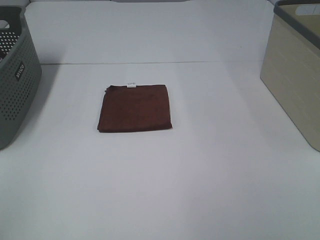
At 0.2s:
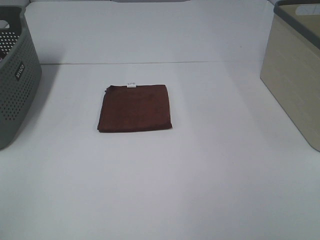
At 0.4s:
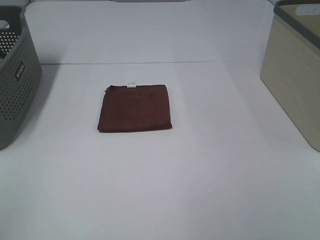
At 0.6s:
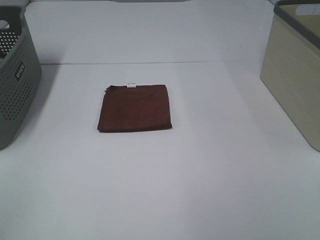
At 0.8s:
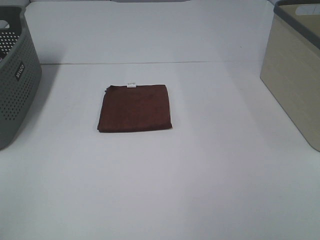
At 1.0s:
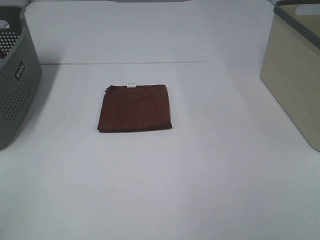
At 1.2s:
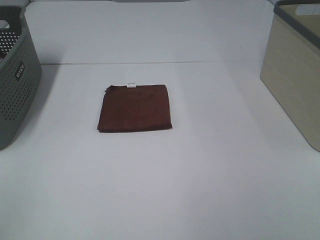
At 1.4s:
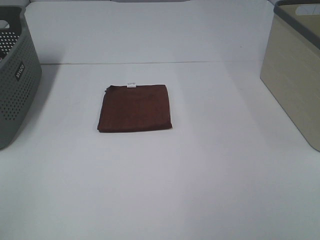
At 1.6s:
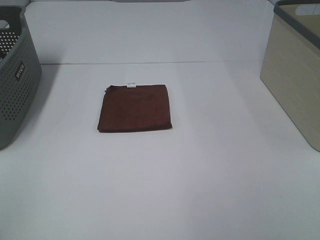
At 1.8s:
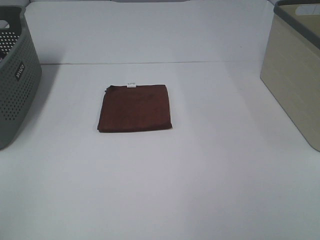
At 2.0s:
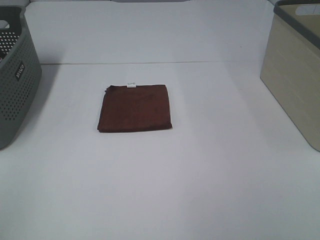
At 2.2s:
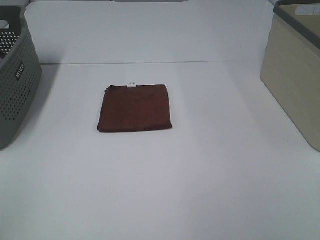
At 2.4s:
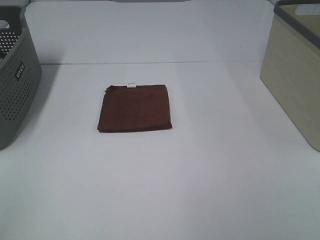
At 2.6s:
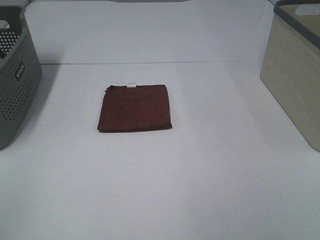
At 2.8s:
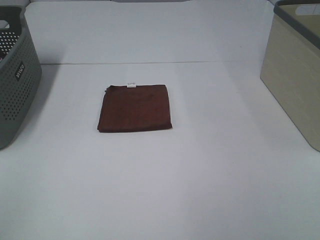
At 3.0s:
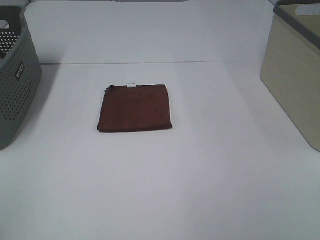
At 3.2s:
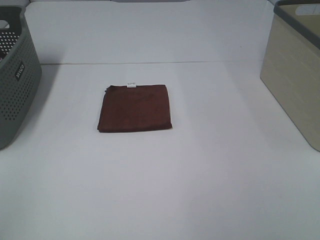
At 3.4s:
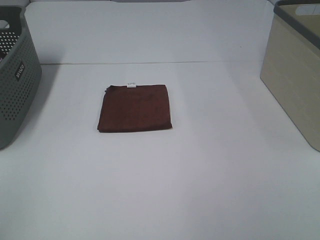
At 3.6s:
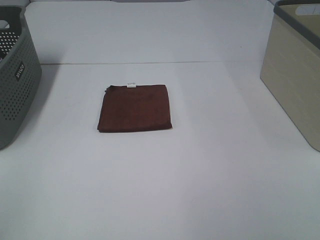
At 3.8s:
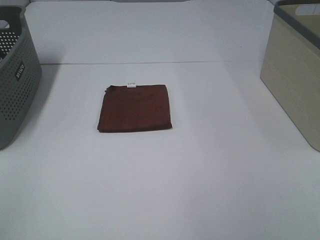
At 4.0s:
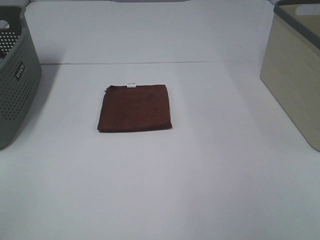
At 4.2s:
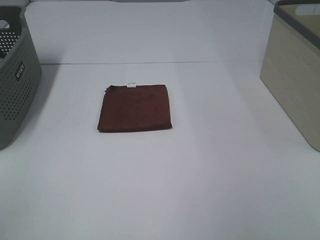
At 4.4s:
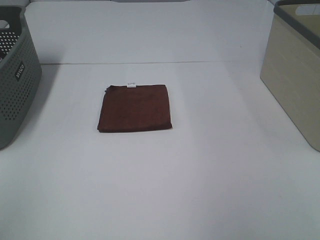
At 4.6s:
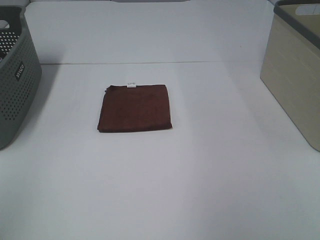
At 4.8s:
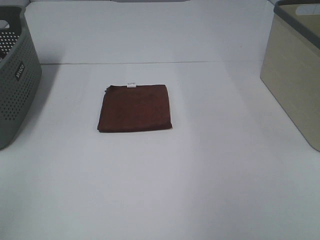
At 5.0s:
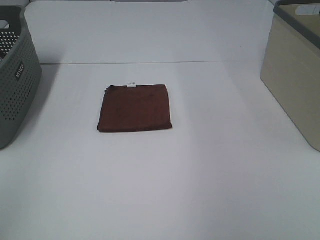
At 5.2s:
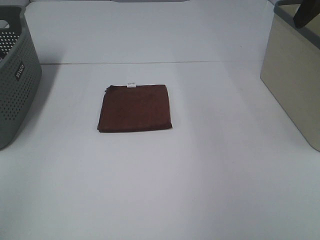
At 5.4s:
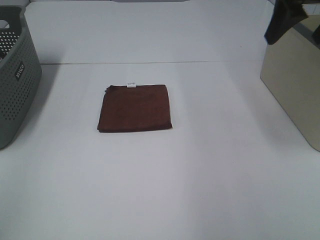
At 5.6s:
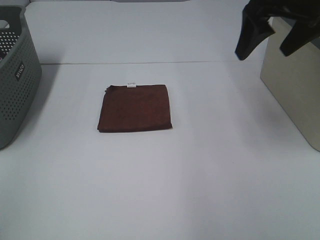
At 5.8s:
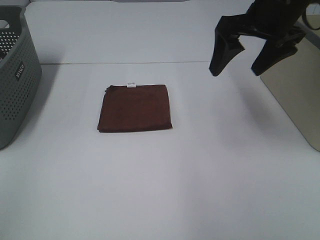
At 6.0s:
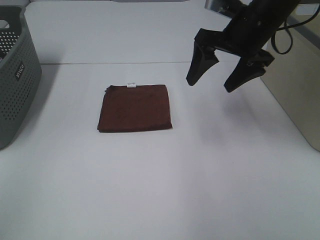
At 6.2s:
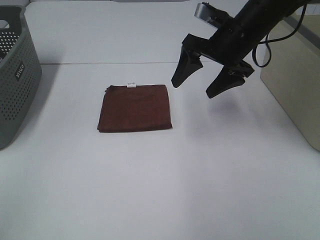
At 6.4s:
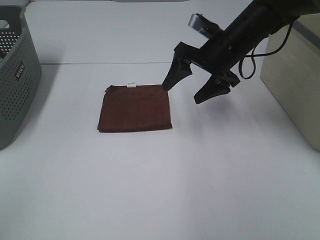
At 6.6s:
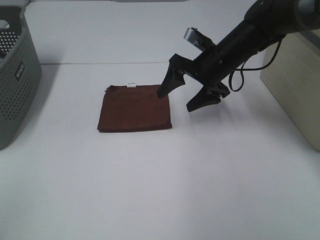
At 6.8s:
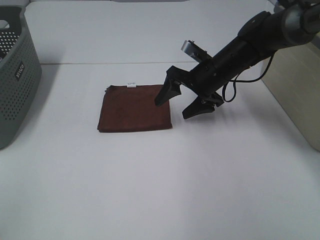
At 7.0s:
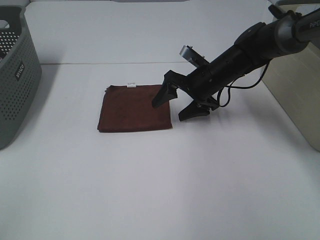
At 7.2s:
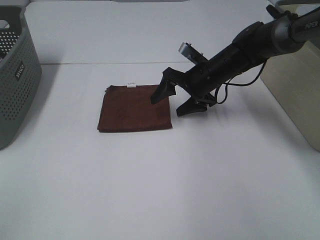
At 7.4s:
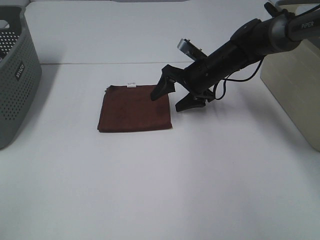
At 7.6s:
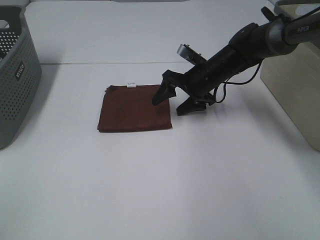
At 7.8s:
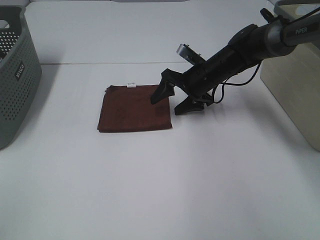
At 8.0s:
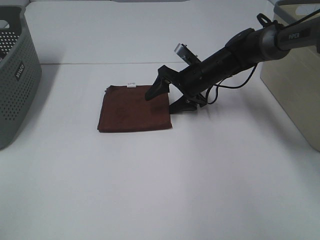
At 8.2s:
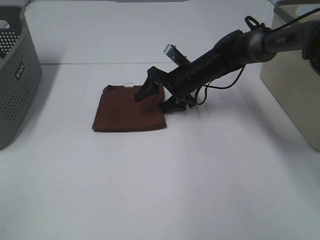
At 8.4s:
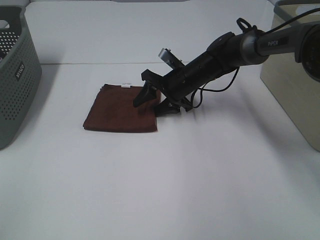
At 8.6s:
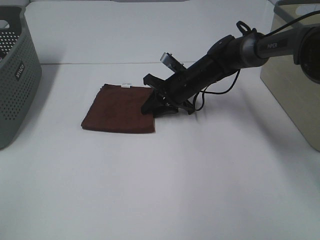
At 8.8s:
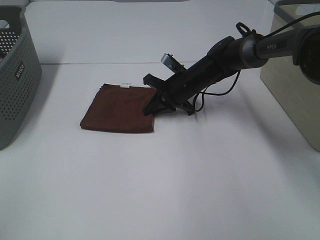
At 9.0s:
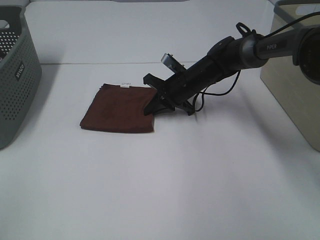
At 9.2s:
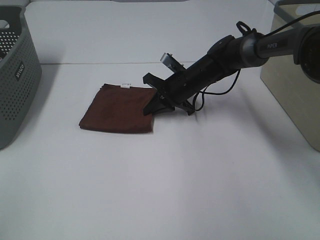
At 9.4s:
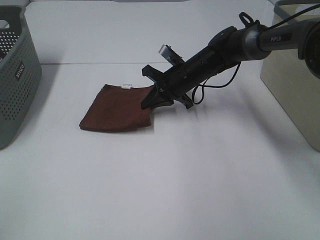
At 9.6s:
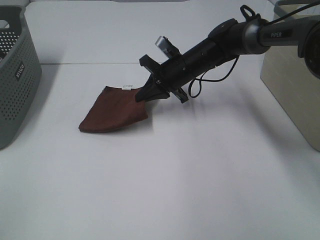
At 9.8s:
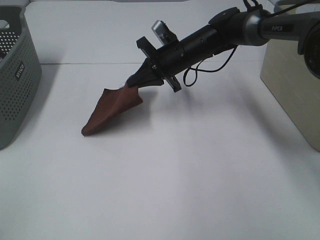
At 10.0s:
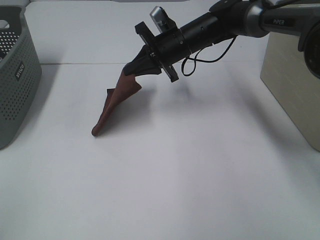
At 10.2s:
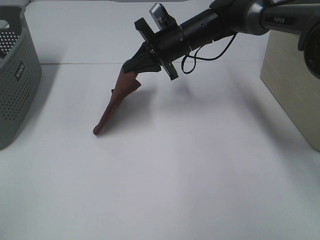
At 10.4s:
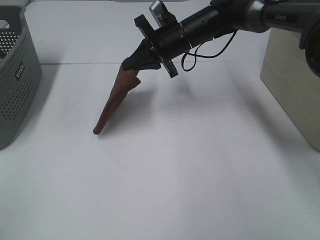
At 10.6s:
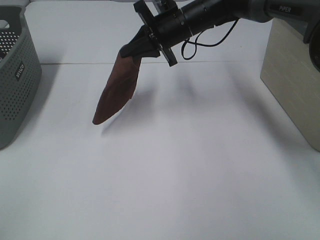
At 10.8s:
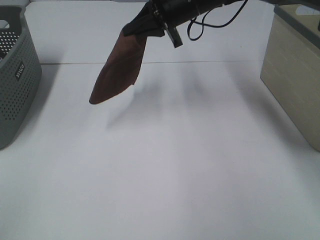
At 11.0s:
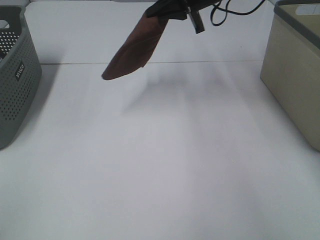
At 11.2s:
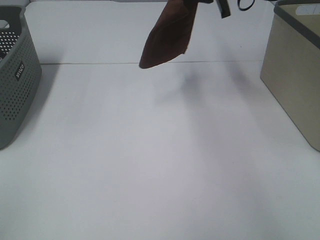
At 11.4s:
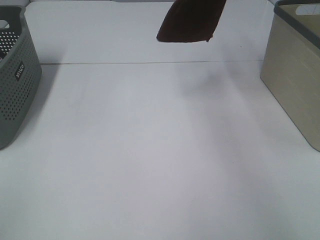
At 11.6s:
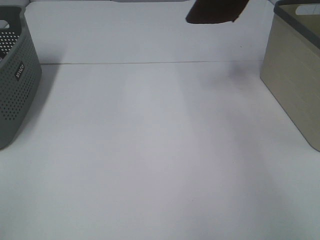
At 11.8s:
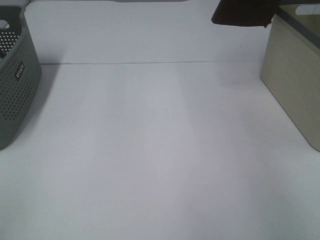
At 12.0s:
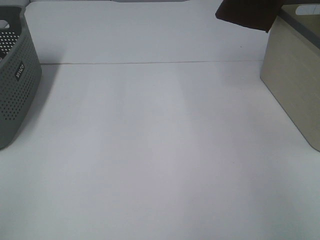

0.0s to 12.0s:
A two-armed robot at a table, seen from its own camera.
Step, 0.0s to 8.8s: Right hand: grab the folded brown towel.
0.0s to 3.0s: The two grippers keep their place.
4.4s to 6.0s: The right gripper is displaced forward, to the left and downward by about 30 cm.
6.0s to 7.6s: The right gripper is displaced downward and forward by about 15 cm.
7.6s to 9.0s: The right gripper moves about 5 cm, and closes its fingers.
9.0s to 10.4s: The right gripper heads upward, covering roughly 10 cm.
10.4s to 12.0s: The right gripper is displaced to the right and upward by about 35 cm.

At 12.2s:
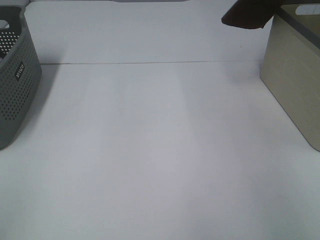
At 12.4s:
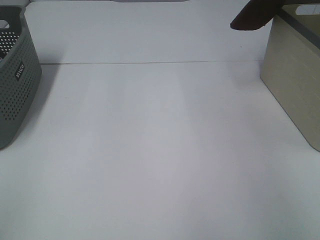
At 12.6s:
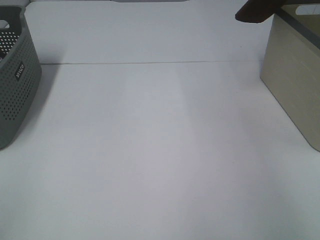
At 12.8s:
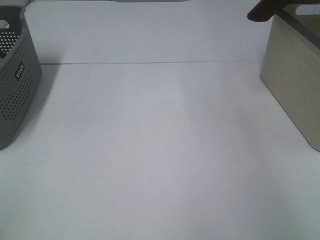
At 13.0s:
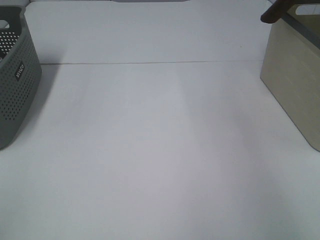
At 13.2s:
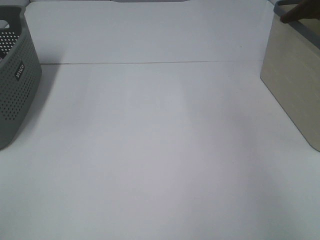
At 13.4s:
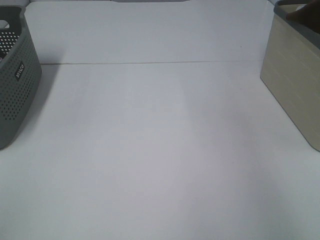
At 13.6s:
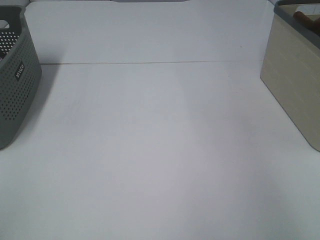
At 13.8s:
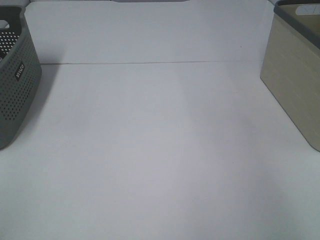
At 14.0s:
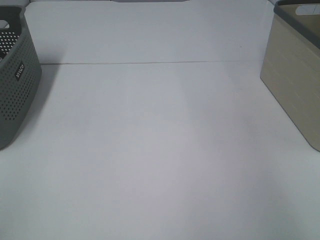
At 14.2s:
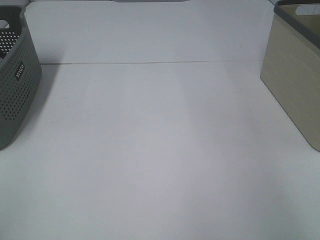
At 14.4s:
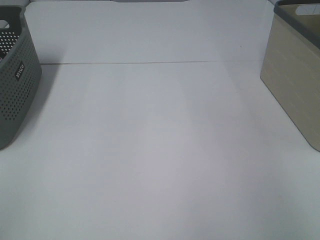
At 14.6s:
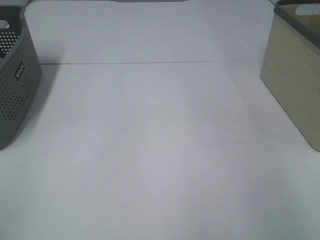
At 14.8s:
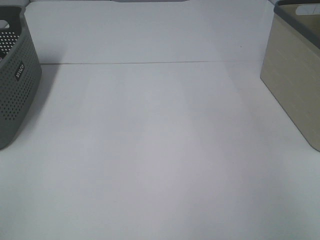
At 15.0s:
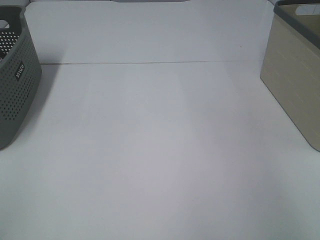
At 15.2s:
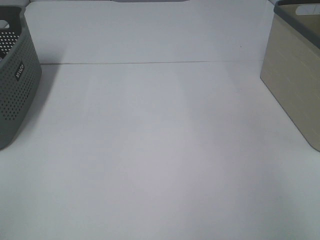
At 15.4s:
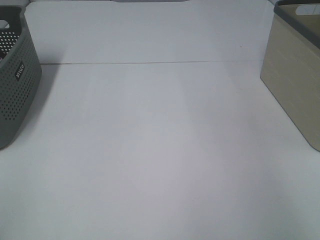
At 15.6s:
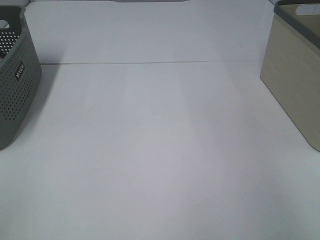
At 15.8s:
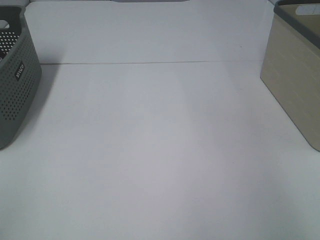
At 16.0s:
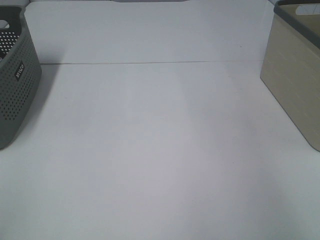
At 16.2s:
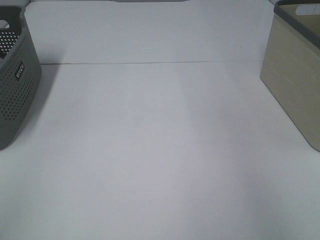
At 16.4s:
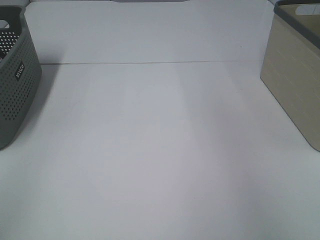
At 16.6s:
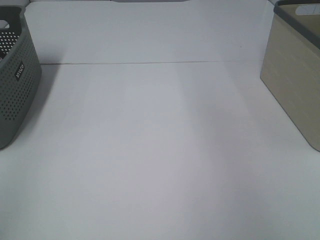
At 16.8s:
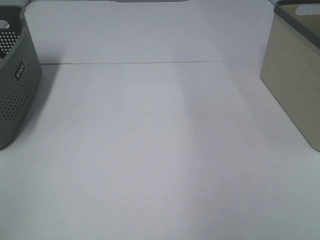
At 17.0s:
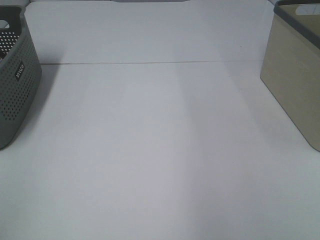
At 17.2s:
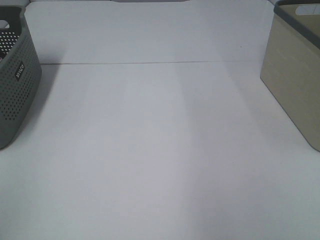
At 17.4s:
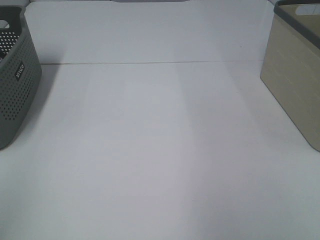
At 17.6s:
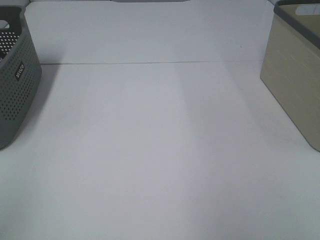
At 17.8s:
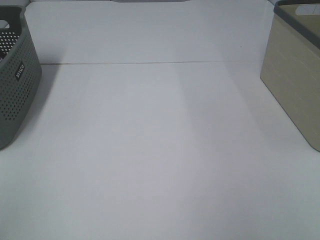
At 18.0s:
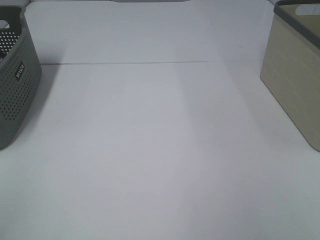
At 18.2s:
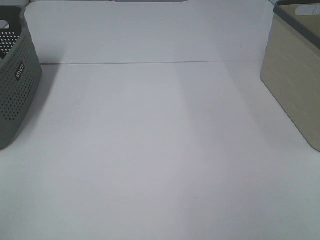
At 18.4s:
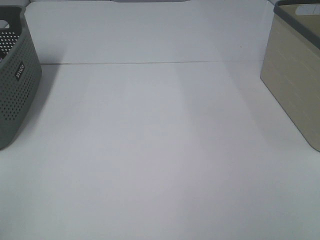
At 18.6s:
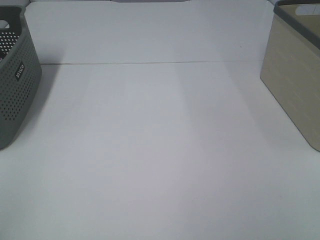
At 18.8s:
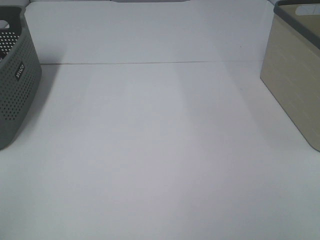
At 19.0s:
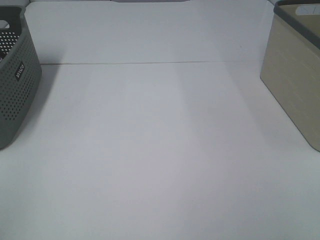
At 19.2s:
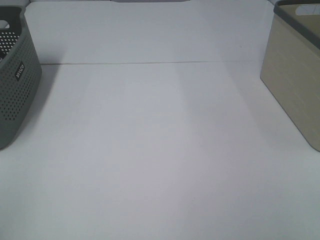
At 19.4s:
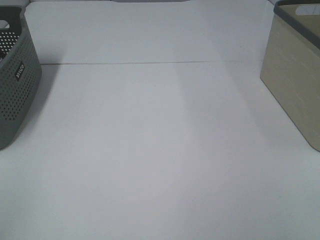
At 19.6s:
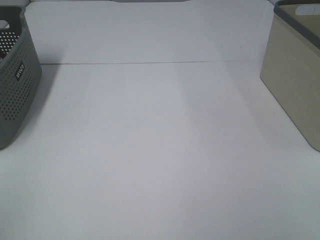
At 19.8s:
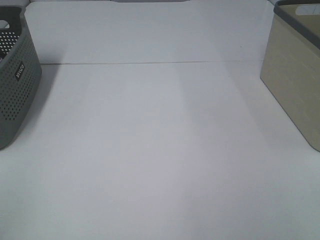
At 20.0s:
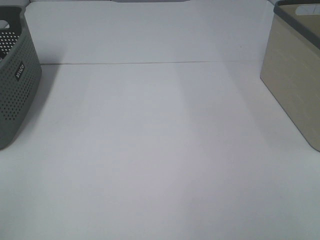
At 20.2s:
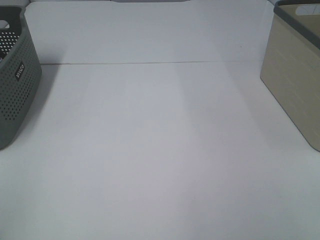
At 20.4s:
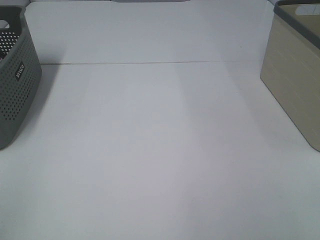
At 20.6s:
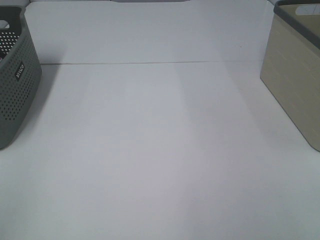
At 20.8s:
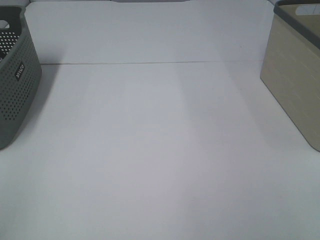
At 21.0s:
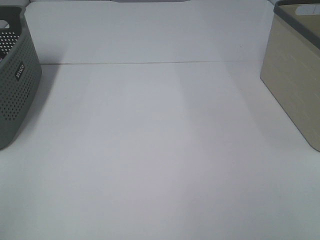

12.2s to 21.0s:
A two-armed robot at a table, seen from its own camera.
Step, 12.2s to 15.6s: Right hand: place the brown towel in right basket.
12.2s to 13.6s: The right gripper goes roughly 5 cm backward.

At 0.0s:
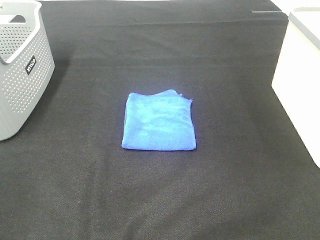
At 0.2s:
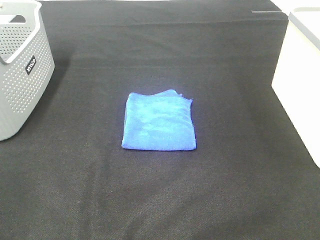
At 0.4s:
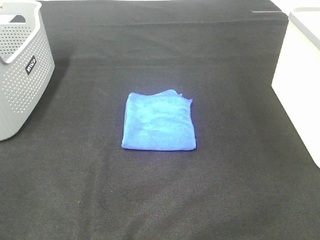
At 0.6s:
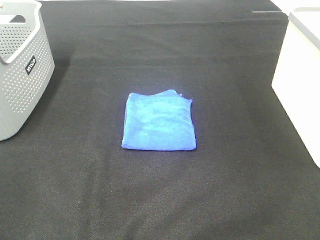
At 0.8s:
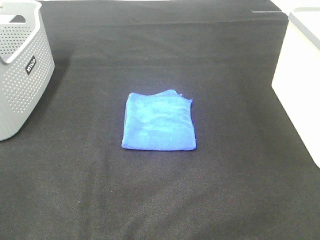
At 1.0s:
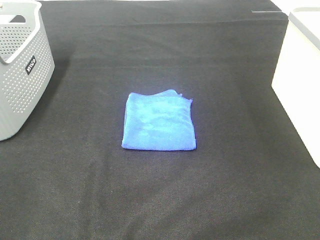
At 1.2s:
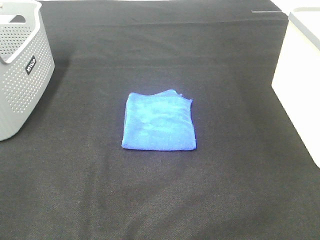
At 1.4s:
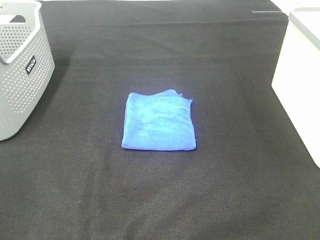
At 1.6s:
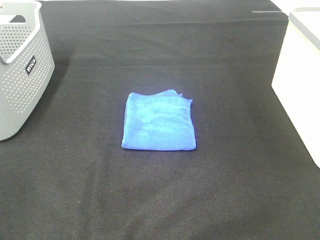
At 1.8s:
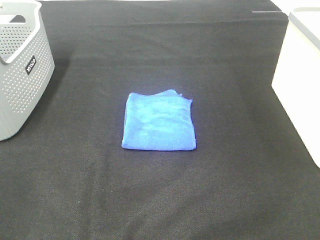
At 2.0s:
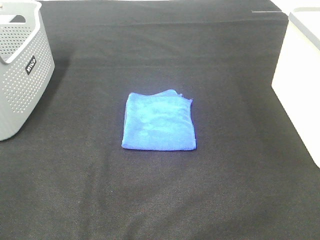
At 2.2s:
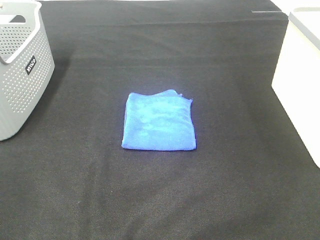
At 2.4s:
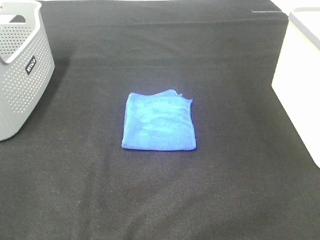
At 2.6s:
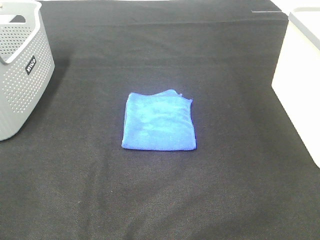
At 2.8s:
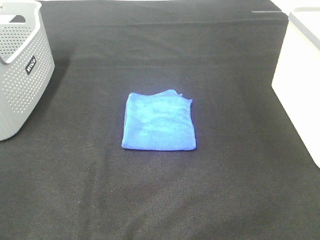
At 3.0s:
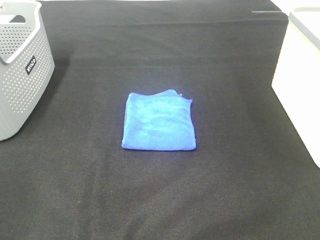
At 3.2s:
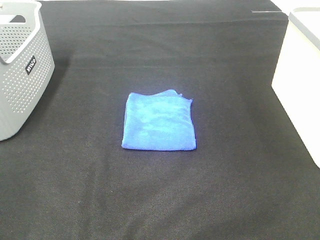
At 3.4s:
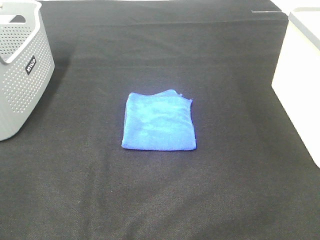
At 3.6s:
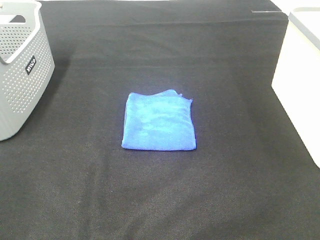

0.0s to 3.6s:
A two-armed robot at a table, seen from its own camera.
0.0s to 3.6s: The two grippers keep their place.
